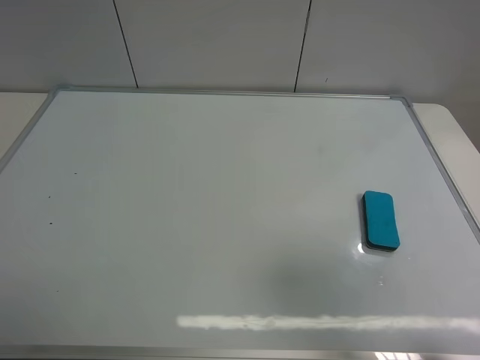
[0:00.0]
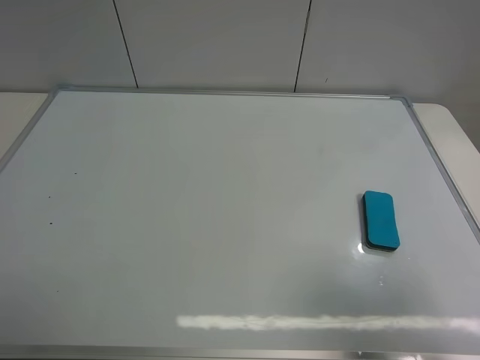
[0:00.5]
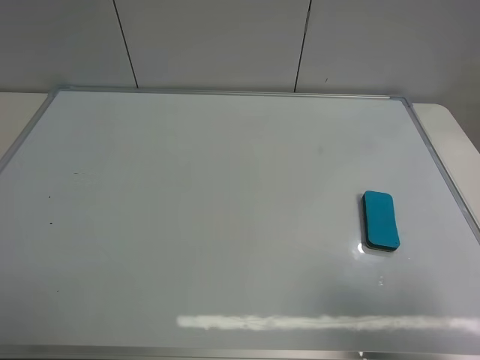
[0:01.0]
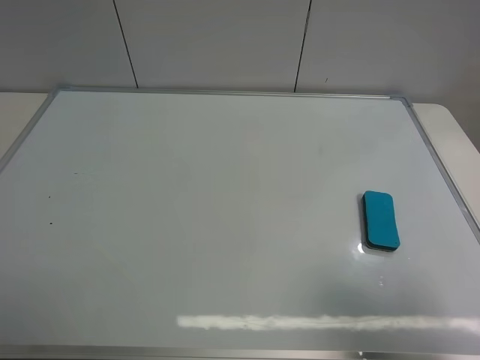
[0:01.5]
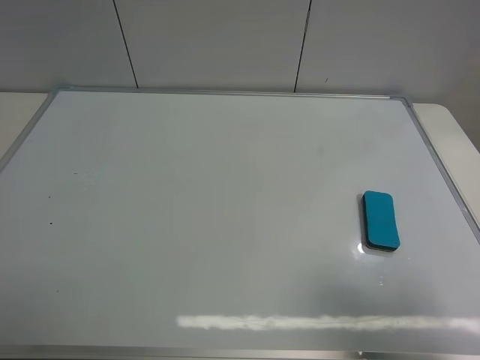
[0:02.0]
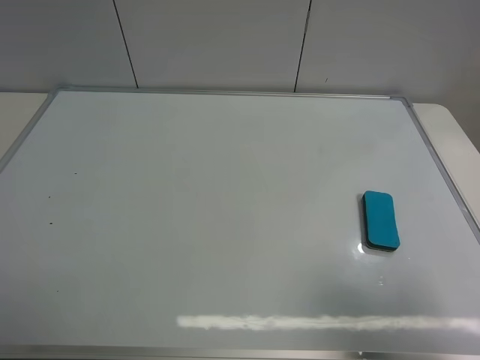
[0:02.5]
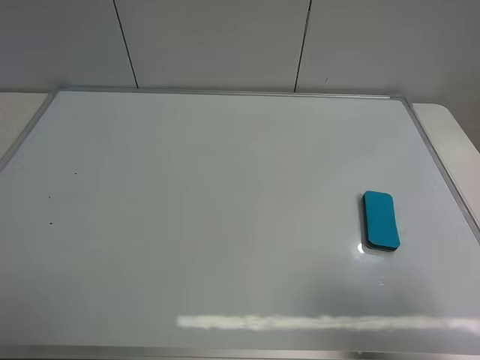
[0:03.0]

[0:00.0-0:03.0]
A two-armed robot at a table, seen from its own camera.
Task of the whole recording: use the left gripper to place the eraser in the right, use the right gripper to pick up the eraser, wipe the notes on the whiteboard clean, and then put it down.
0:00.0 to 0:01.5: The right gripper shifts by roughly 5 cm.
0:01.5 to 0:03.0: The two grippers keep their place.
